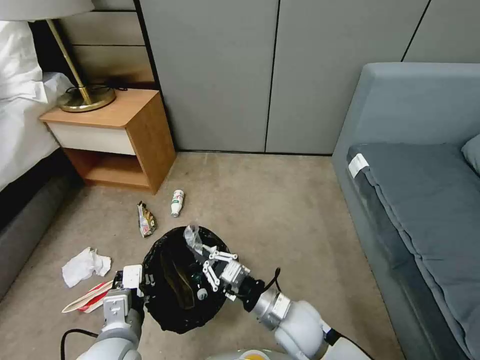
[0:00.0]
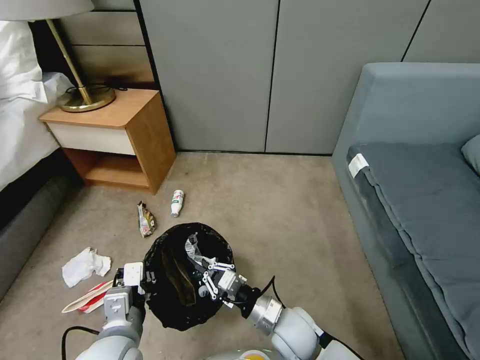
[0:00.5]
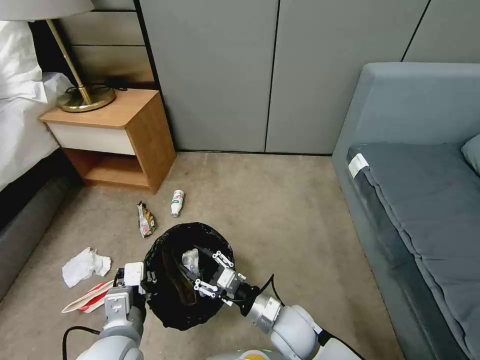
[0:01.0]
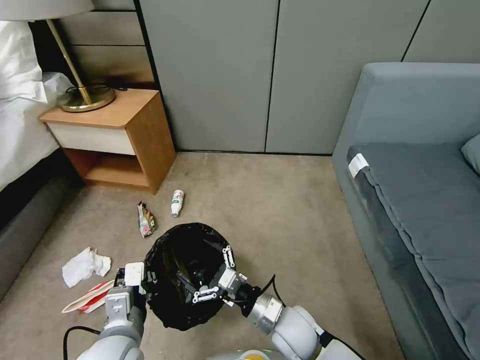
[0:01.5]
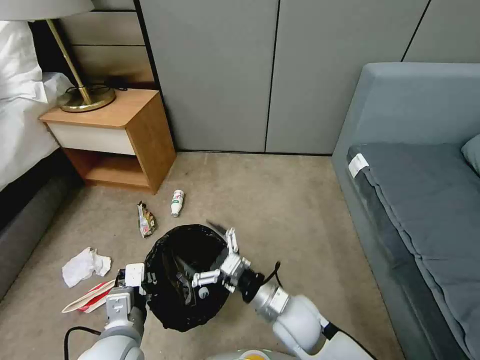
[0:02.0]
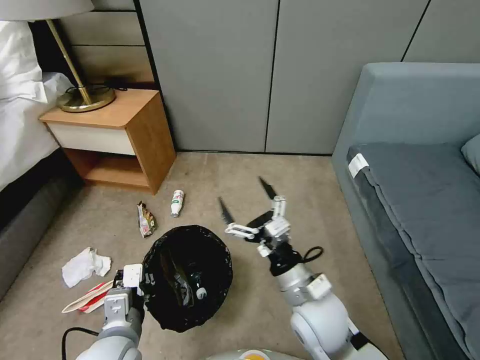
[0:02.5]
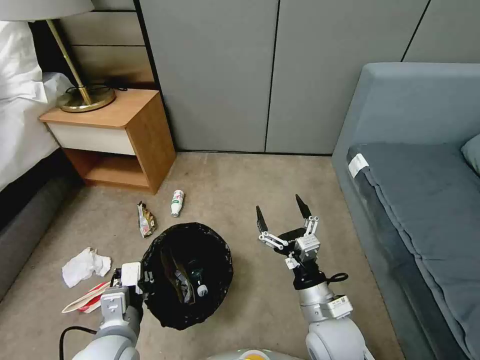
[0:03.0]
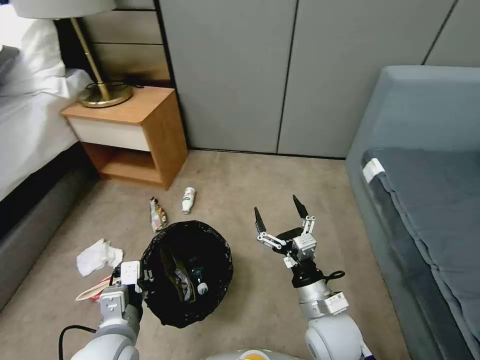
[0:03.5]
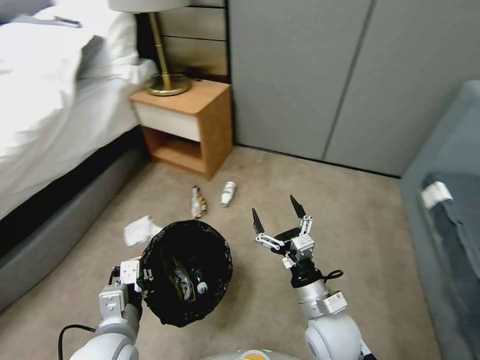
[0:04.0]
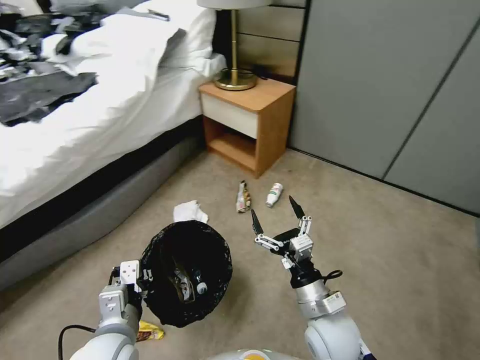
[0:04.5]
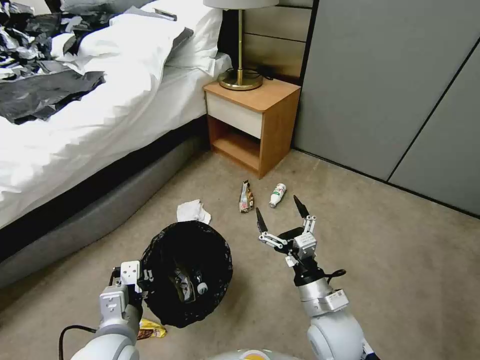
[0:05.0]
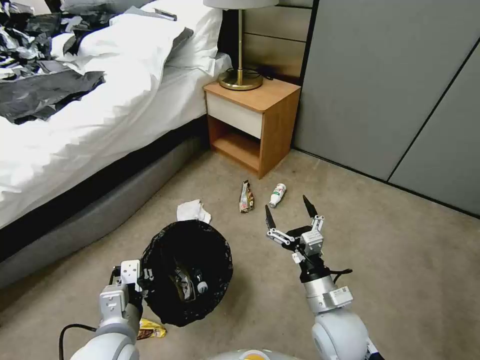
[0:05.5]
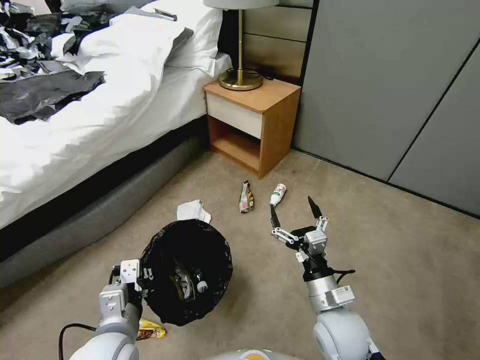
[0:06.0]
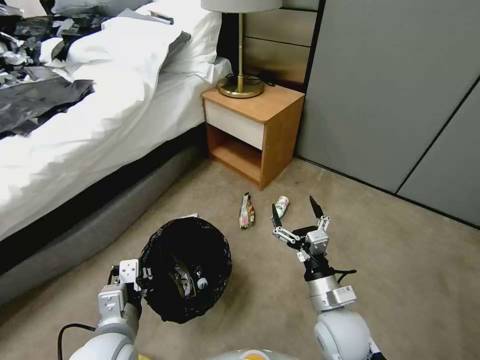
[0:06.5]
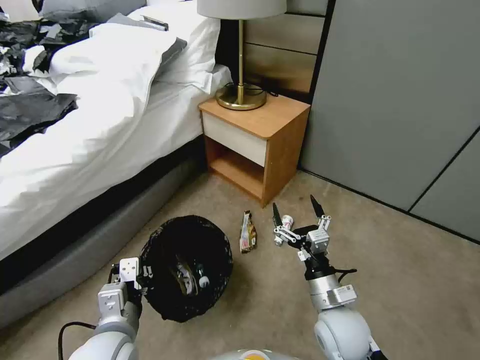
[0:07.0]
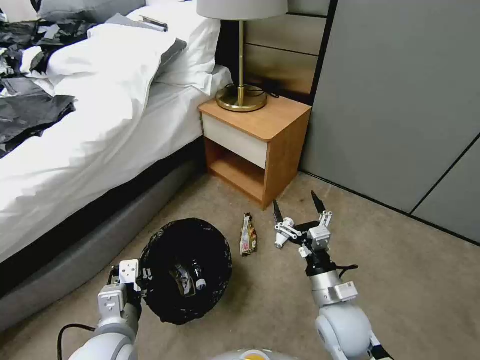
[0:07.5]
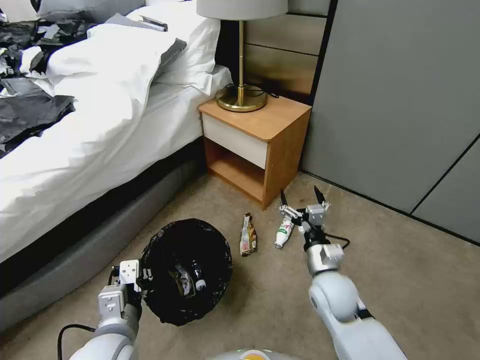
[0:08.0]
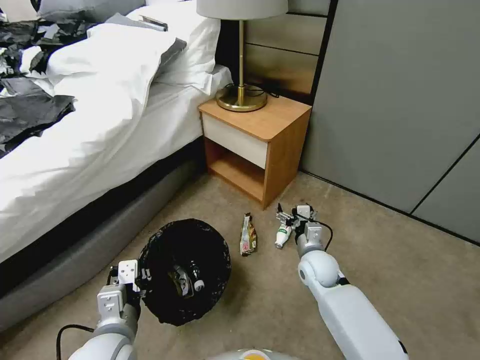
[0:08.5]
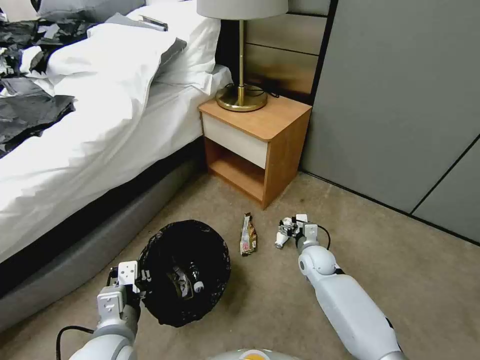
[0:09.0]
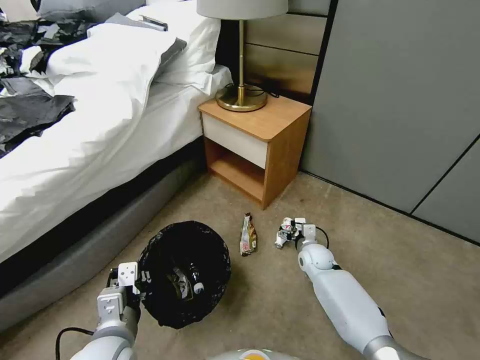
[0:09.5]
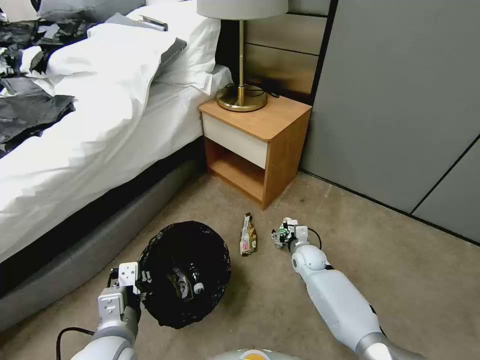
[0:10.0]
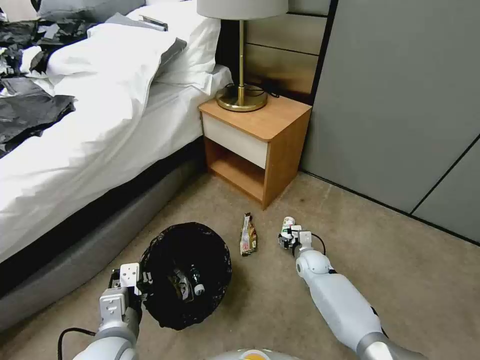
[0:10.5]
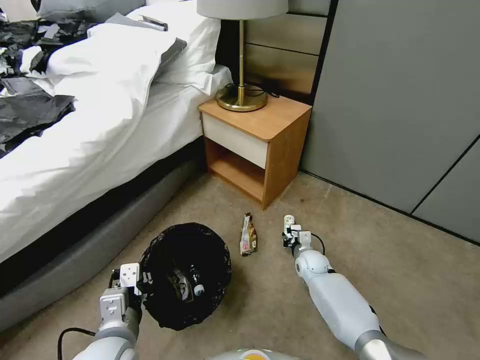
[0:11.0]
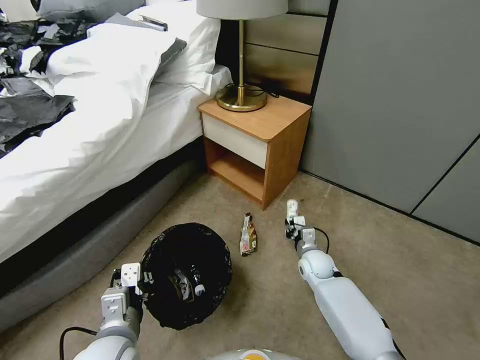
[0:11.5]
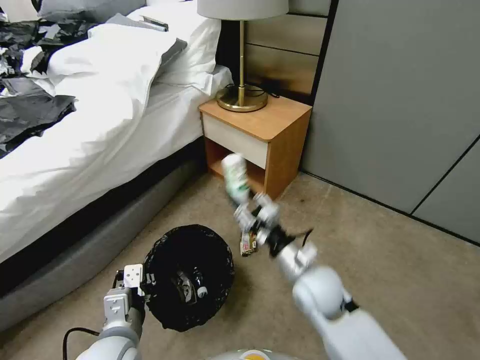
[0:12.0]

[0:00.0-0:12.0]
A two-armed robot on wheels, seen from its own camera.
Task of the whole recording: Pick up the trash bin, then pick up the garbage from the floor and place it into the trash bin.
0:00.0 to 0:02.0: The right gripper opens its fingers.
0:02.0 to 0:04.0: The right gripper moves to the right, about 5 cm.
0:06.0 to 0:08.0: The right gripper moves forward, some 5 cm.
0:08.0 to 0:10.0: The right gripper travels forward and downward by roughly 20 cm.
0:10.0 to 0:12.0: The right gripper goes roughly 20 cm upward and backward, and closes.

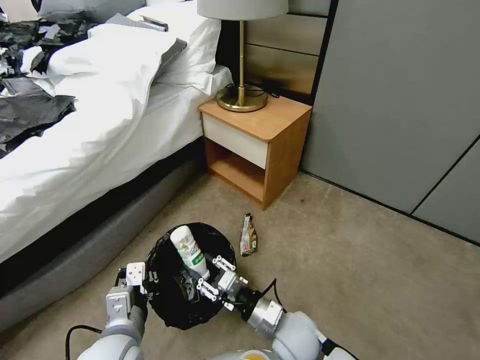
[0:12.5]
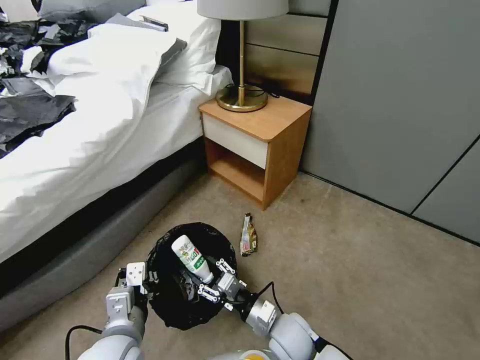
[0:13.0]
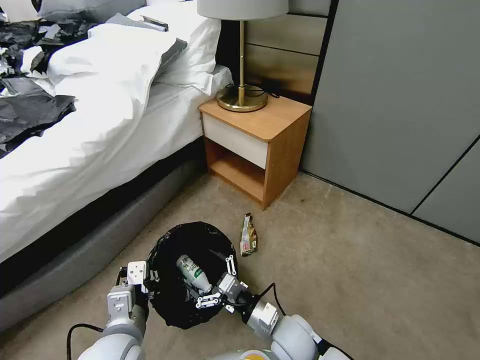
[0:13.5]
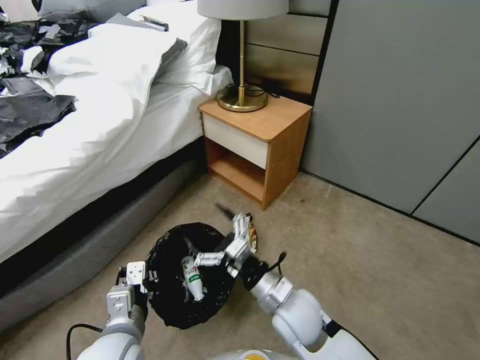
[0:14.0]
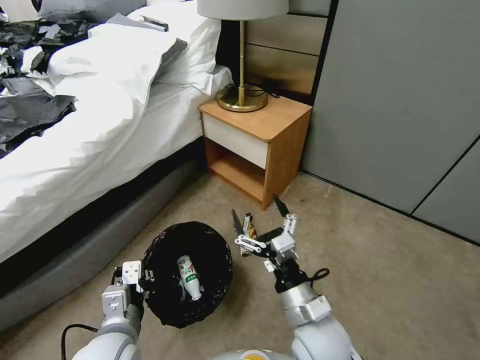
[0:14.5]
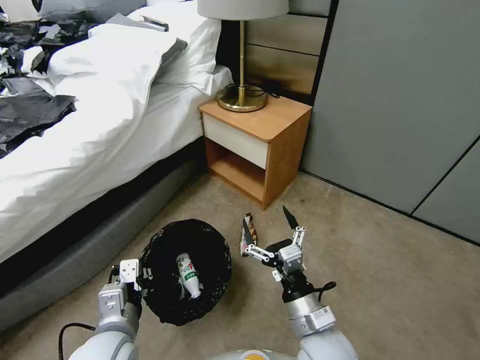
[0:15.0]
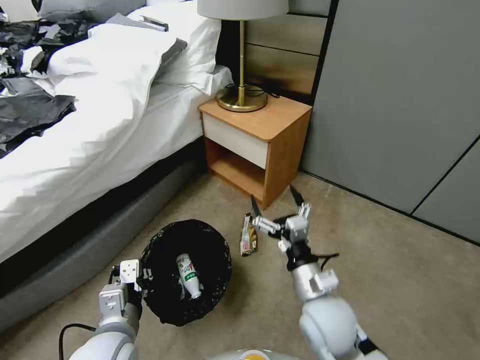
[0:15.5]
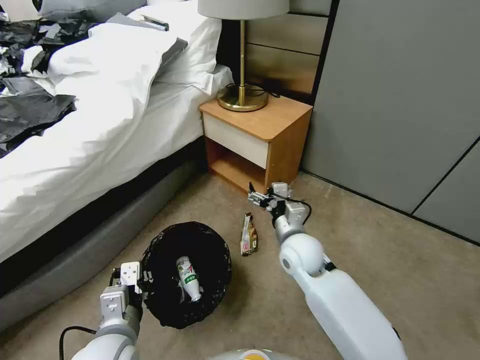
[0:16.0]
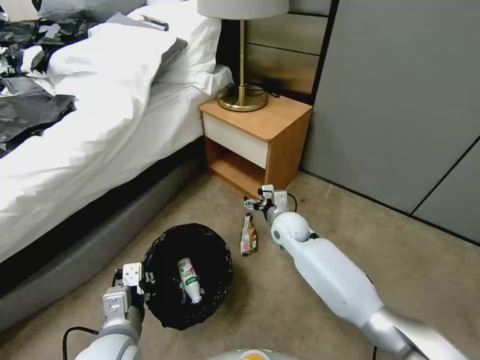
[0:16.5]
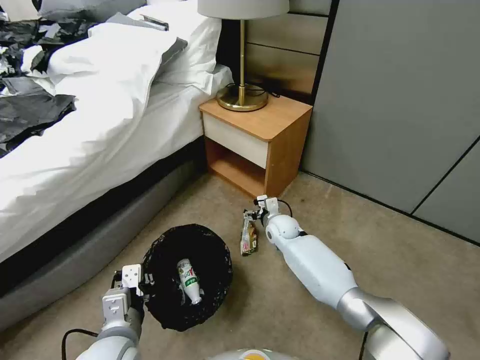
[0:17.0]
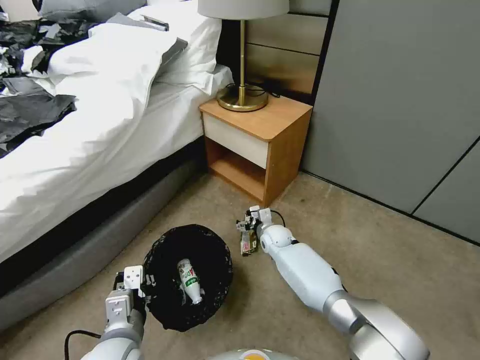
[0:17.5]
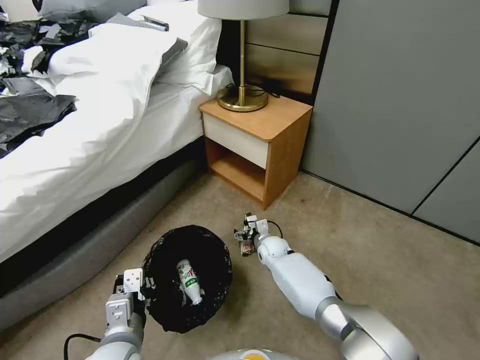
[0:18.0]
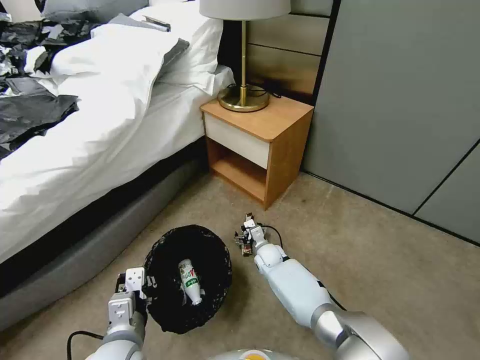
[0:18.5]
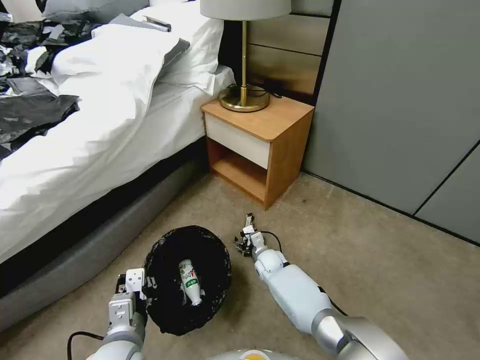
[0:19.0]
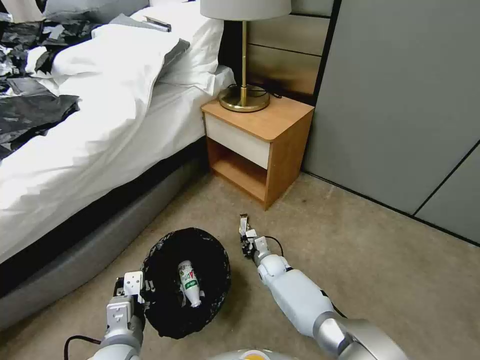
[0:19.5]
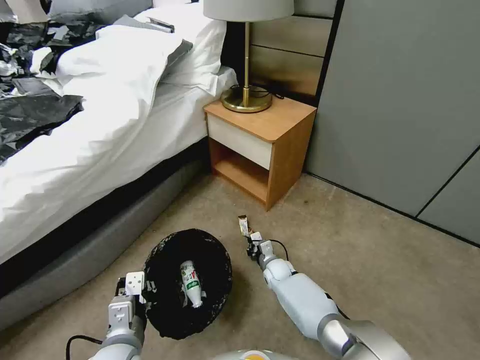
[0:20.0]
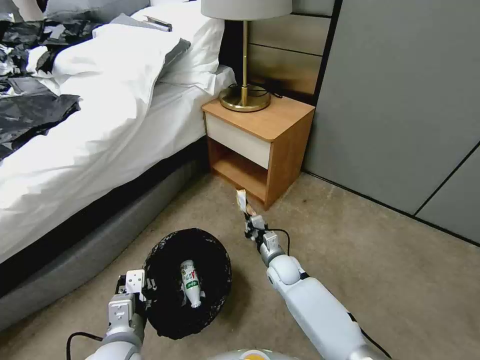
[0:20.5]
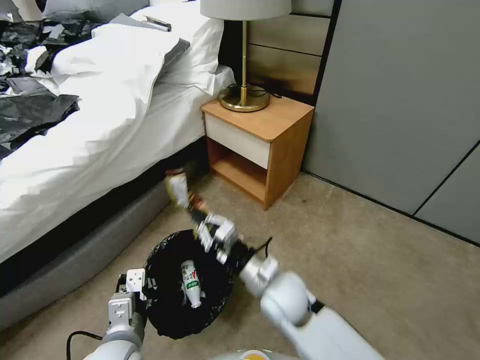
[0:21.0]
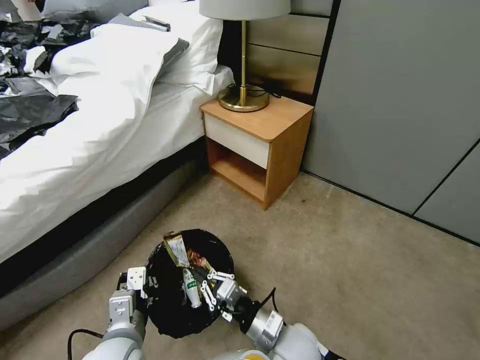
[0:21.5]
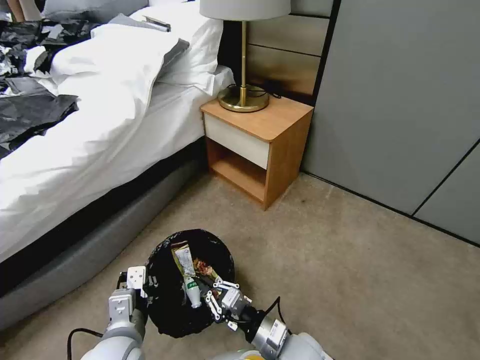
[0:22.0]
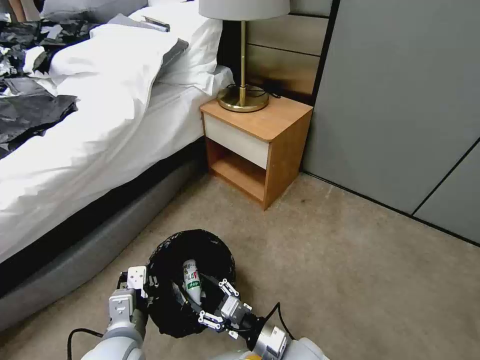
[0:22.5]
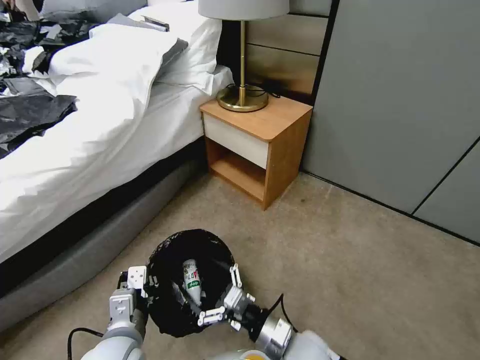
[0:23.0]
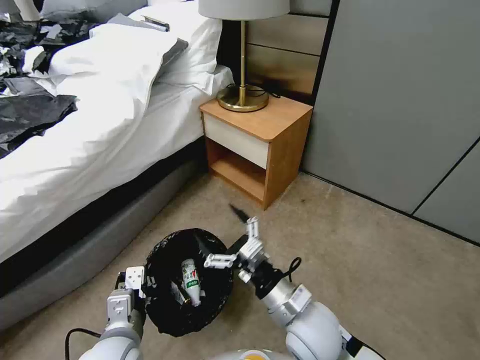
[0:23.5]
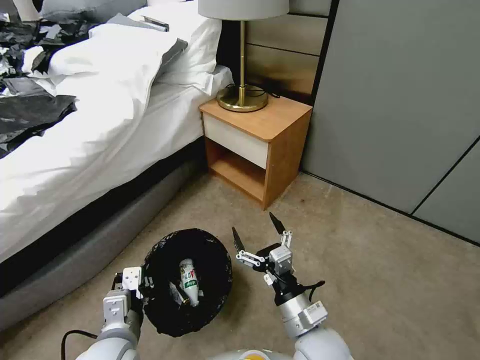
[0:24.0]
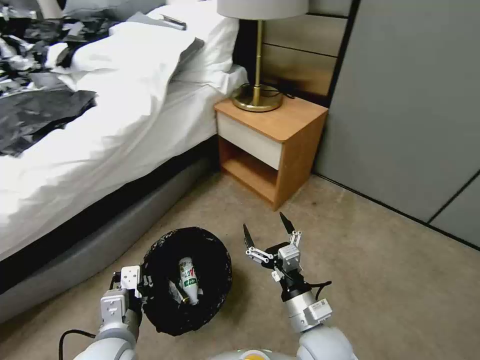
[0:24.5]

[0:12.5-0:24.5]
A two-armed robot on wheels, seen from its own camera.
Task of the whole recording: Pick up the trash bin, then pick up the garbage from the floor and place it into the trash bin.
0:12.5 to 0:14.5: The right gripper heads upward, covering about 10 cm, and opens up.
0:14.5 to 0:16.5: The right gripper is displaced forward by roughly 25 cm.
0:16.5 to 0:18.5: The right gripper goes some 15 cm downward.
0:18.5 to 0:20.5: The right gripper is displaced backward by approximately 5 cm, and closes.
0:20.5 to 0:22.5: The right gripper moves backward, some 20 cm, and opens its fingers.
0:22.5 to 0:24.5: The right gripper travels upward by approximately 5 cm, and opens its fingers.

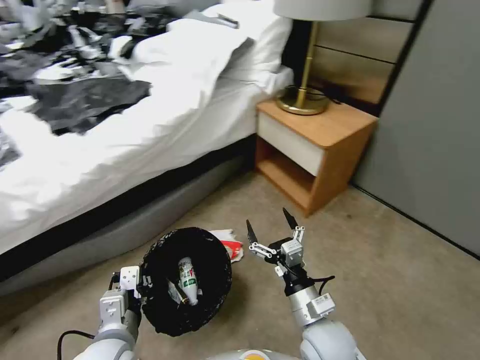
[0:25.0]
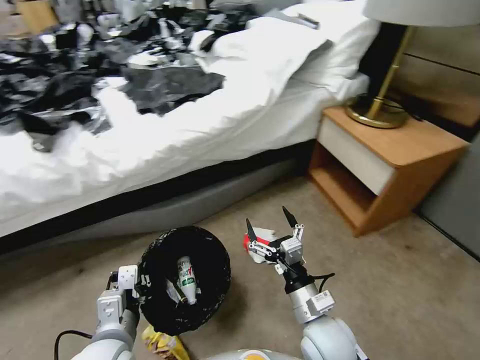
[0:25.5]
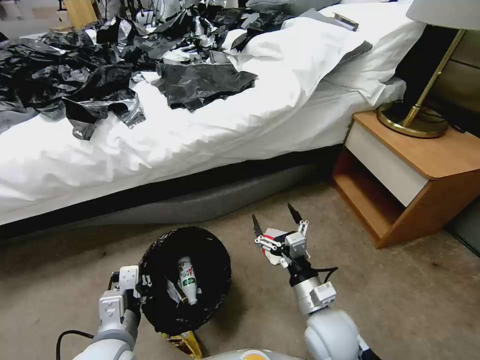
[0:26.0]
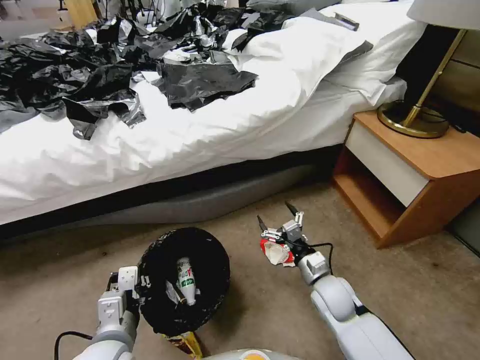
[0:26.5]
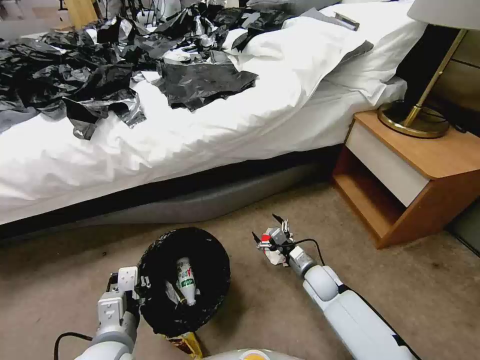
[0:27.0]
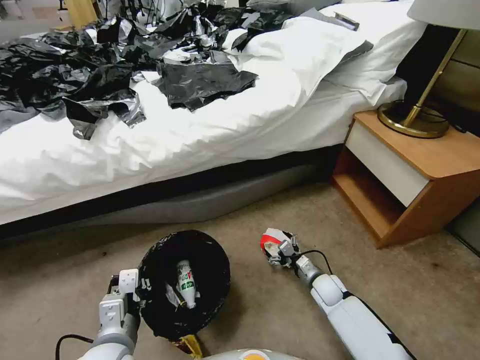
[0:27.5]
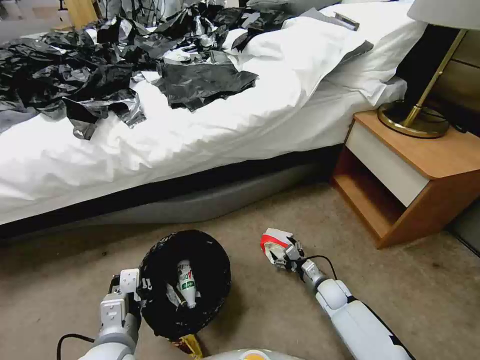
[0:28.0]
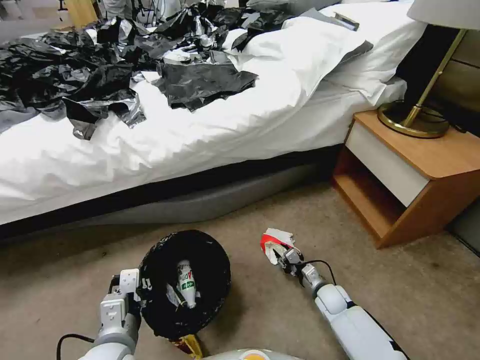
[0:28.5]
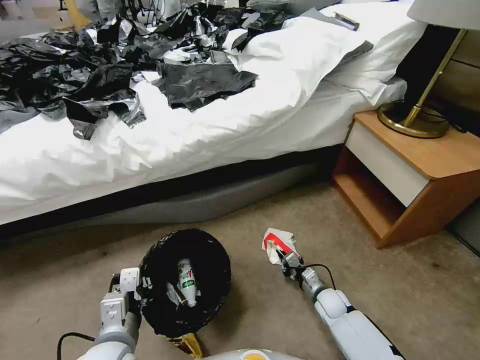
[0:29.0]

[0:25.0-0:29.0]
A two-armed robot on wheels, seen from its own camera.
Task of the whole recording: Pick up the trash bin, then pick up the garbage from the floor and place it into the trash bin.
0:25.0 to 0:27.0: The right gripper goes some 20 cm forward and downward.
0:27.0 to 0:29.0: The right gripper moves downward, approximately 10 cm, and closes up.
